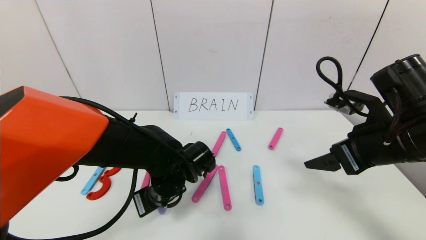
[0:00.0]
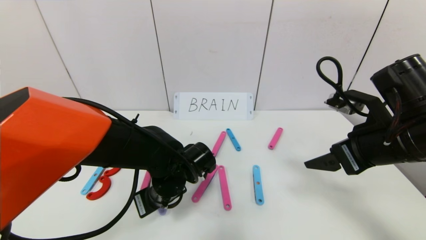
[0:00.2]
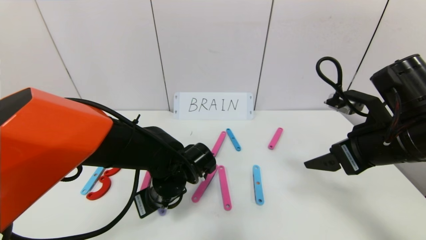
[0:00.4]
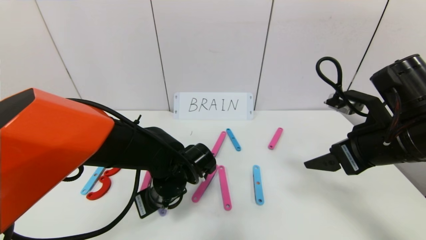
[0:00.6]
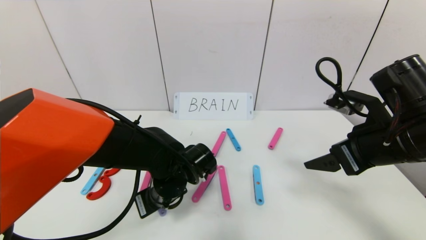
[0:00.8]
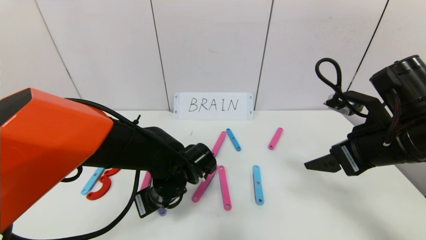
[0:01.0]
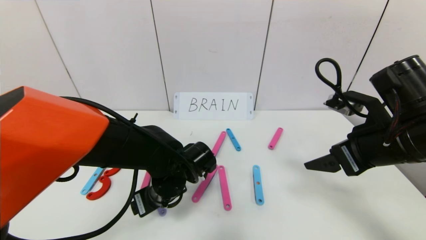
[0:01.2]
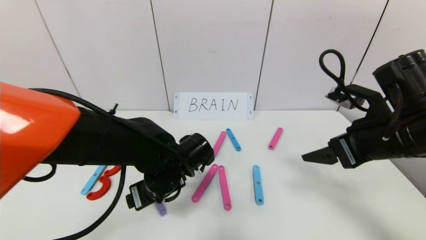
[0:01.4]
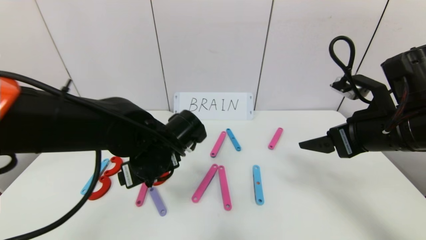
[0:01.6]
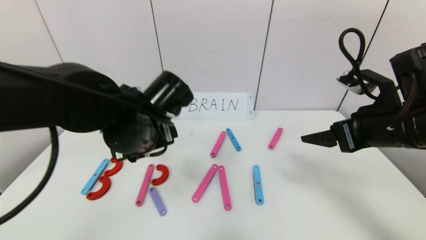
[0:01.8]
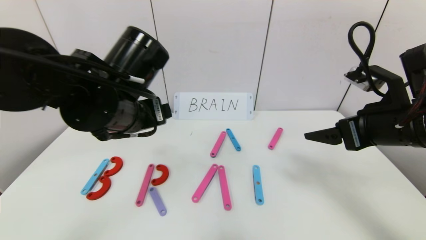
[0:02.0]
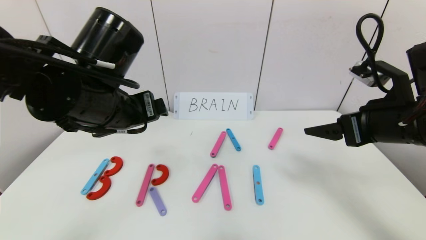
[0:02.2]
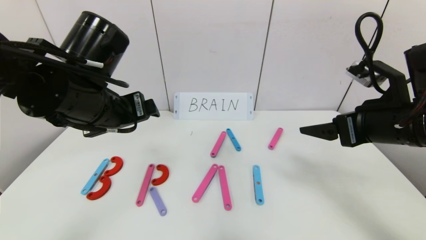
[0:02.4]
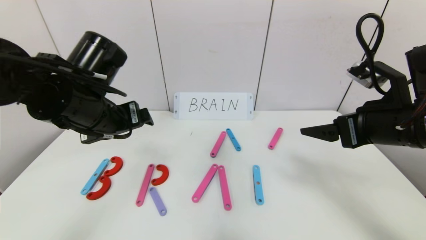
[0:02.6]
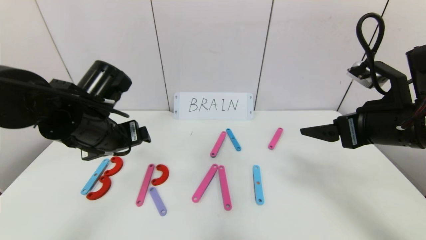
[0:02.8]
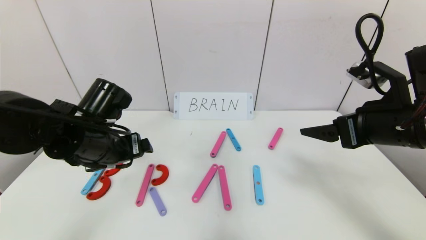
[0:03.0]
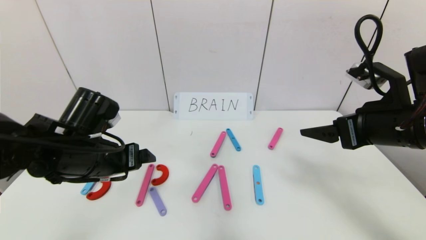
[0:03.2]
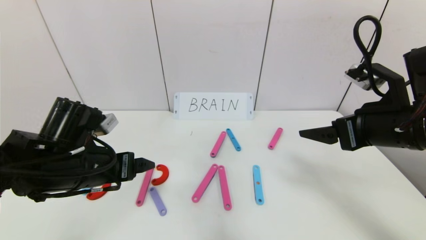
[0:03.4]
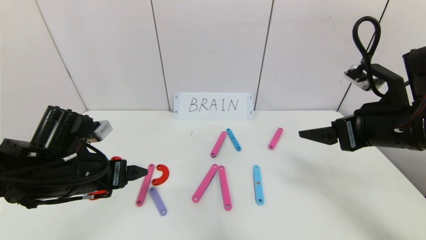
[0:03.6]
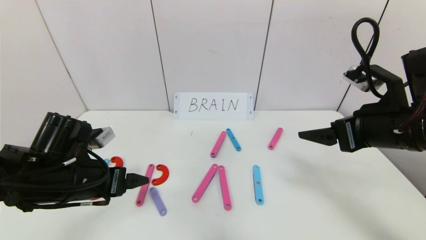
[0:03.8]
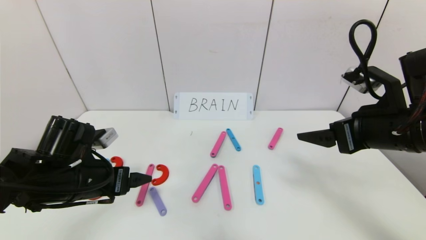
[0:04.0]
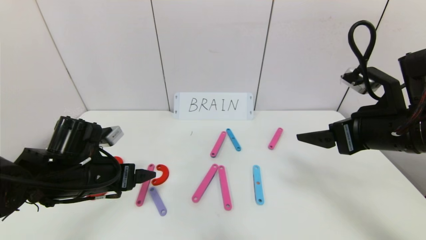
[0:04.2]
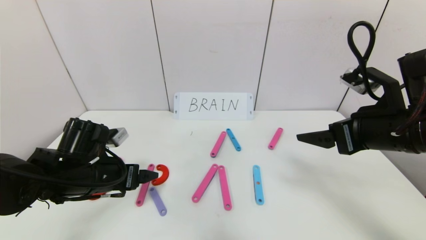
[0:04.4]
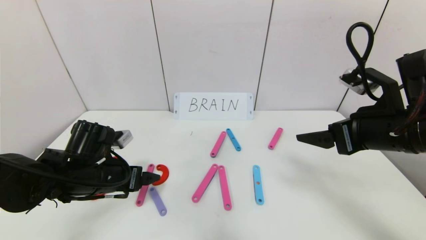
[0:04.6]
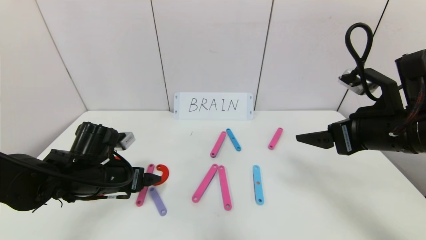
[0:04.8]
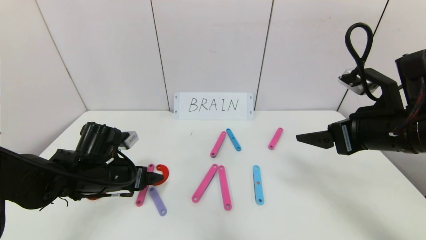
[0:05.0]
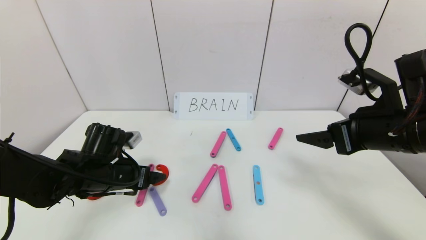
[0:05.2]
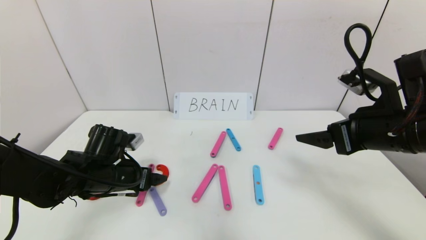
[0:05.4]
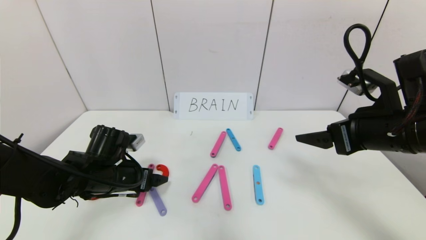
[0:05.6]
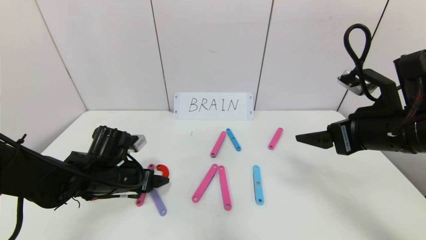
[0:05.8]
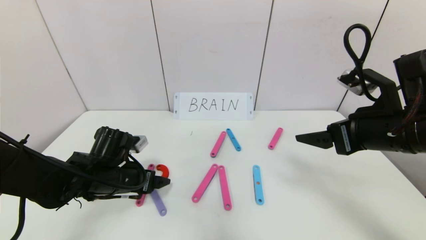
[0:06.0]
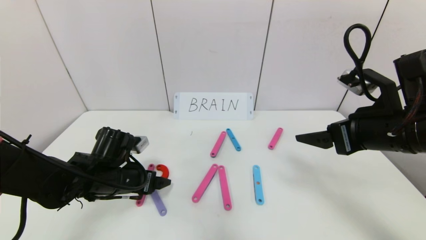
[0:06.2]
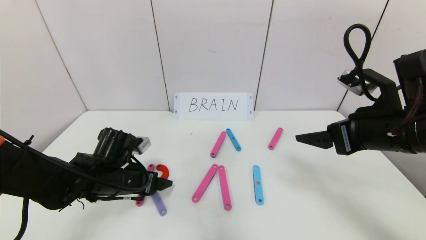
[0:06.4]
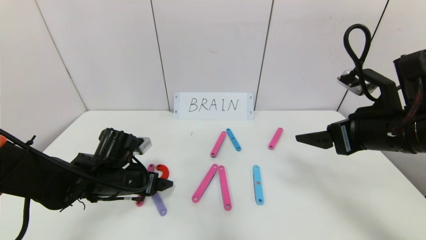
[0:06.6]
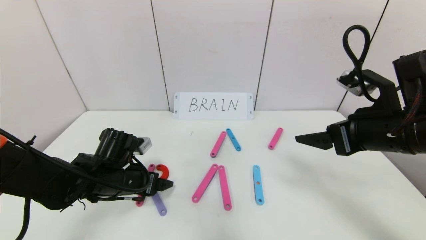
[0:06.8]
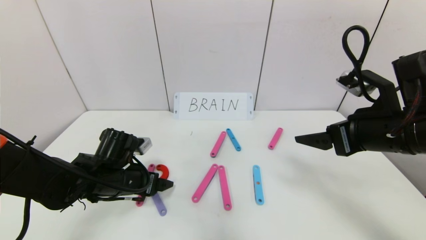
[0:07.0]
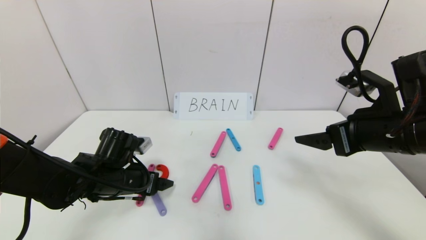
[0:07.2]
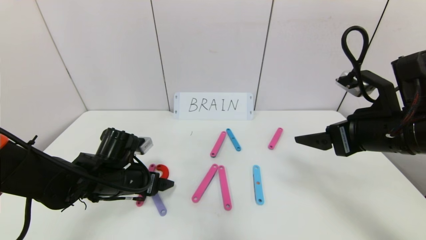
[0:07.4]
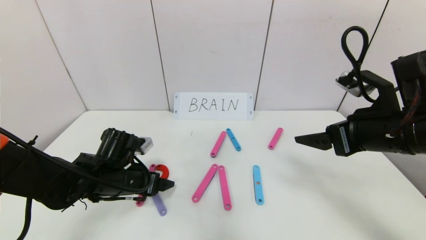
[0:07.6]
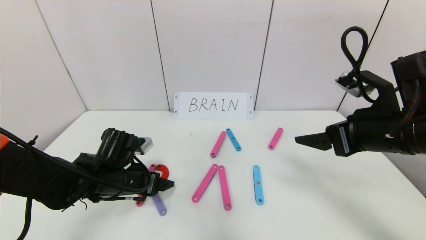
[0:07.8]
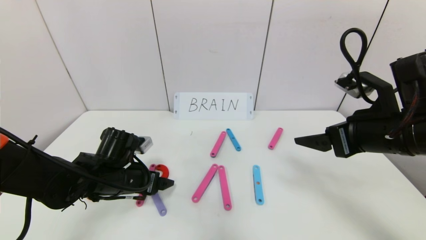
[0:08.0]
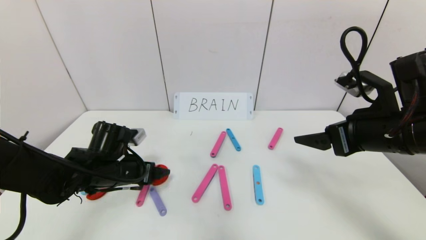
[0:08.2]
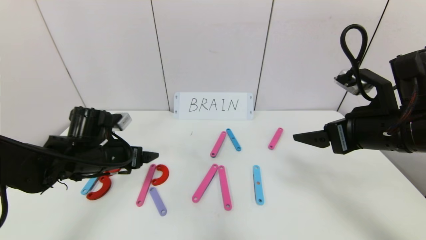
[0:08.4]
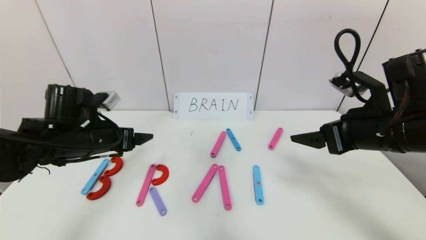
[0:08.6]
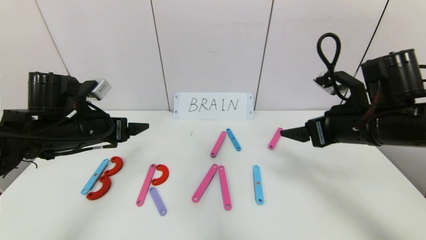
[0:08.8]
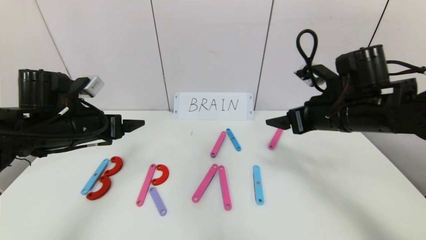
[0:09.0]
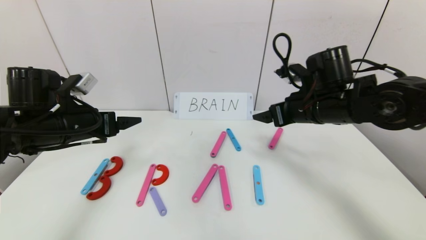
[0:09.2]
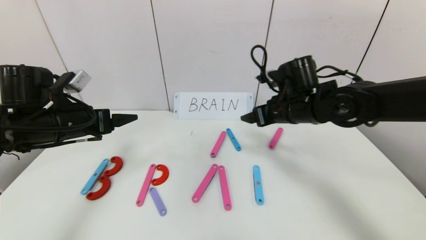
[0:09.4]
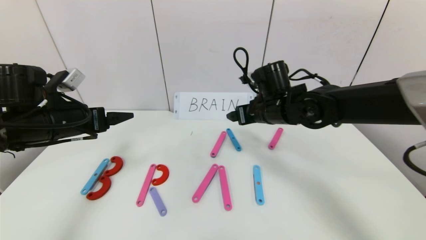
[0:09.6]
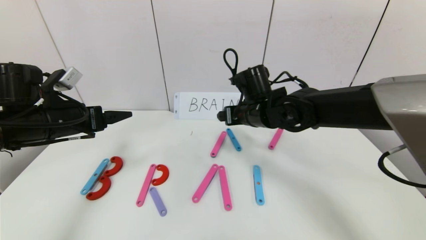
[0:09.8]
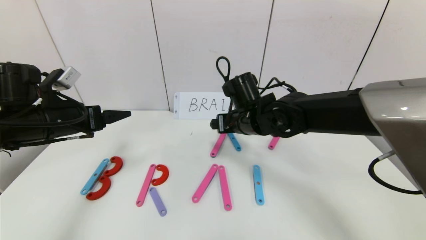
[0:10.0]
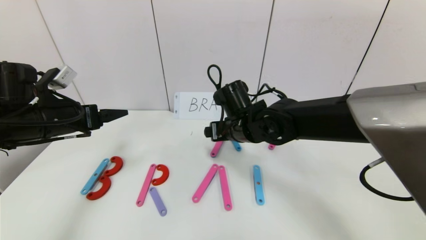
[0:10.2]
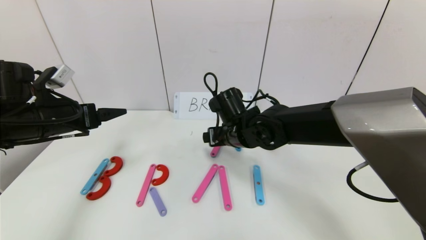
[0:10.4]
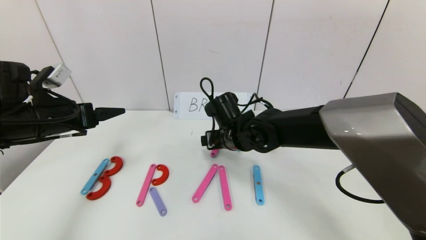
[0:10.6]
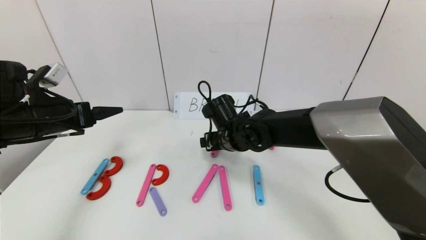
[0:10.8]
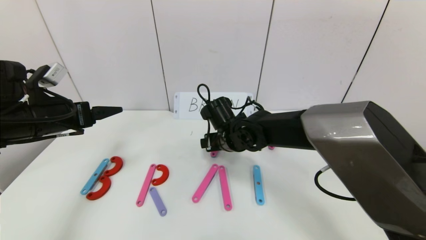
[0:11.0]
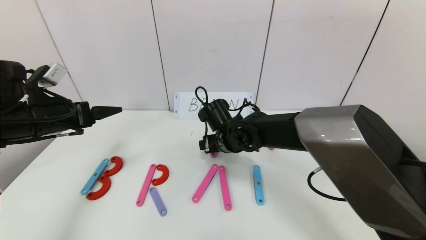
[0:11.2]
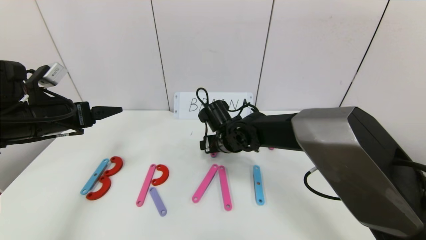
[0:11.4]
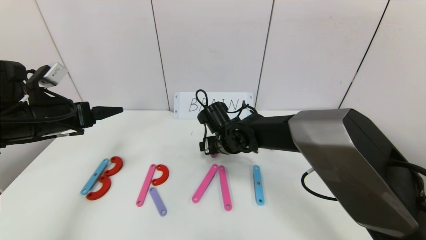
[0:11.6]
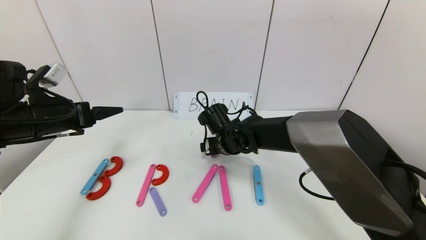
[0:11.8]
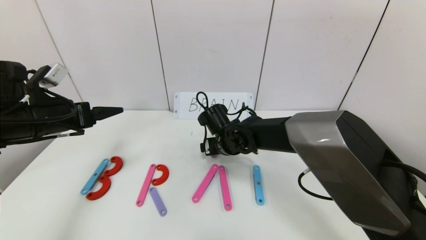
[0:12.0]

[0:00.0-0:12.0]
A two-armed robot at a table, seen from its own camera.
Task of the whole recording: rearrange the word baai as brain.
Step, 0:00.0 to 0:08.0: Place the character R between first character B and third character A.
0:00.0 to 0:01.6: The left gripper is displaced upward by approximately 5 cm, and opens its fingers.
0:01.6 to 0:03.0: The left gripper moves to the left, about 10 cm, and reaches some 10 cm upward, then returns.
0:03.0 to 0:04.4: The left gripper is displaced downward by about 5 cm.
0:04.4 to 0:06.0: The grippers stay close to where they were, moving slightly.
0:06.0 to 0:07.6: The two grippers keep their place.
0:07.6 to 0:09.0: The right gripper travels forward by about 5 cm. The left gripper heads upward and to the left, covering some 15 cm.
0:09.0 to 0:10.4: The right gripper travels to the left and downward by some 20 cm.
0:10.4 to 0:12.0: The right gripper moves downward, about 5 cm.

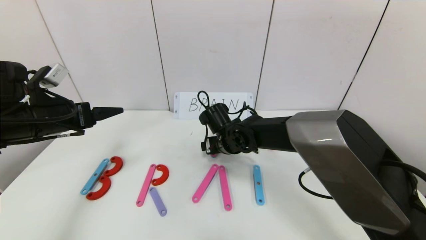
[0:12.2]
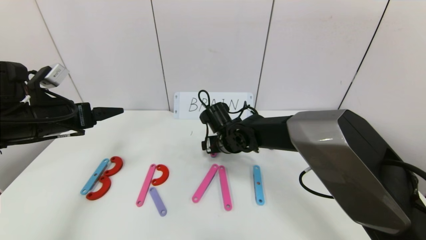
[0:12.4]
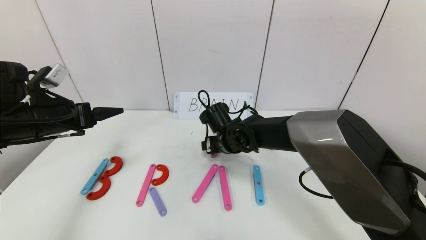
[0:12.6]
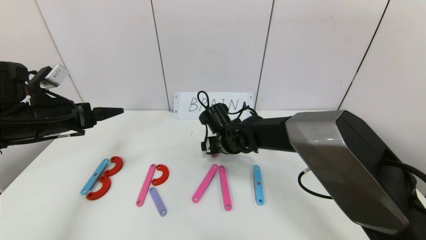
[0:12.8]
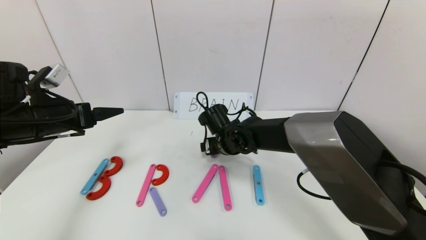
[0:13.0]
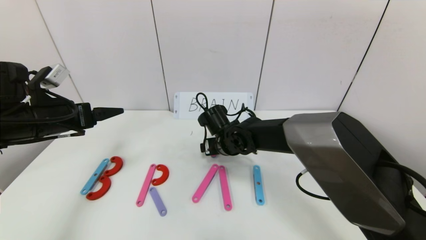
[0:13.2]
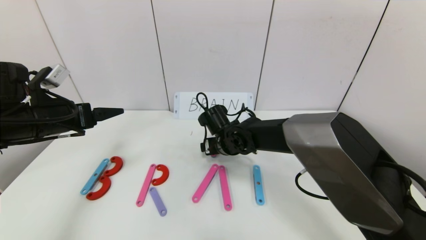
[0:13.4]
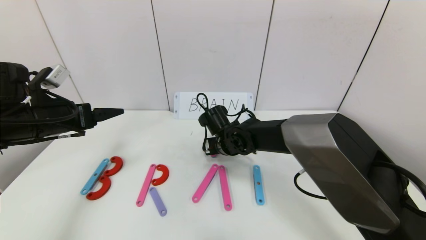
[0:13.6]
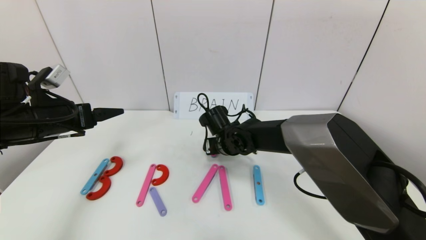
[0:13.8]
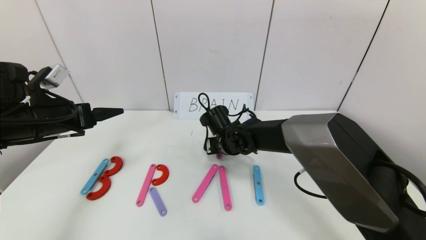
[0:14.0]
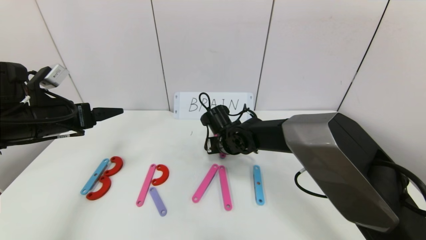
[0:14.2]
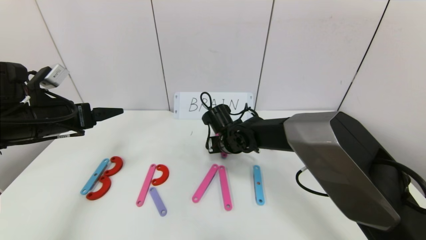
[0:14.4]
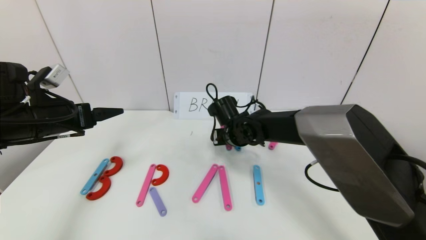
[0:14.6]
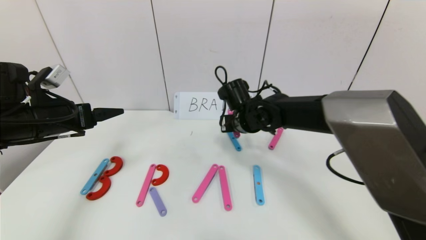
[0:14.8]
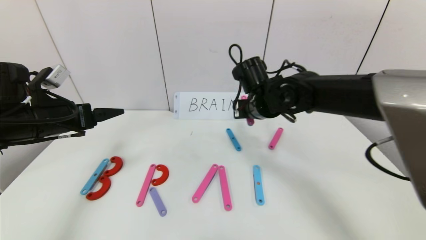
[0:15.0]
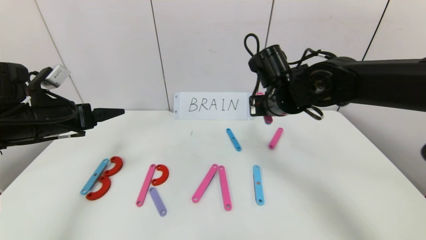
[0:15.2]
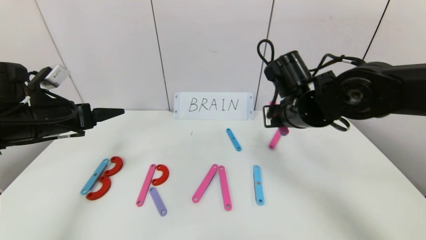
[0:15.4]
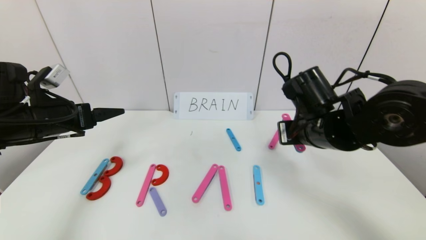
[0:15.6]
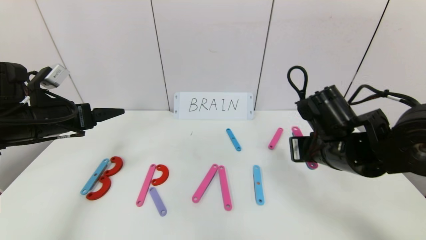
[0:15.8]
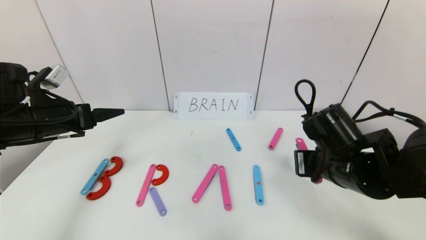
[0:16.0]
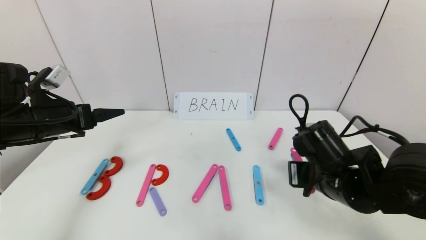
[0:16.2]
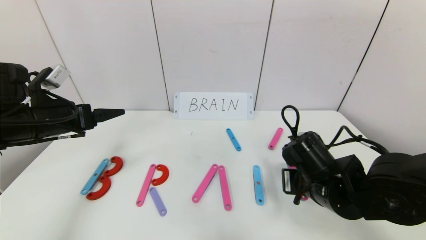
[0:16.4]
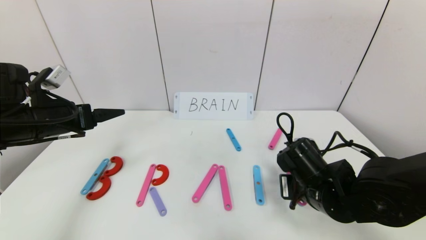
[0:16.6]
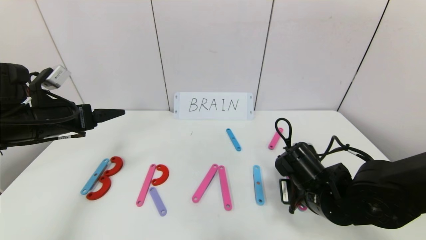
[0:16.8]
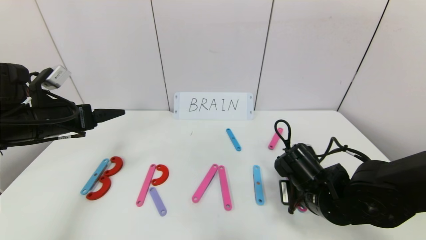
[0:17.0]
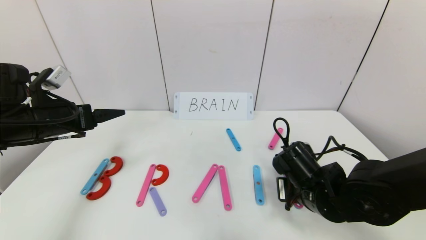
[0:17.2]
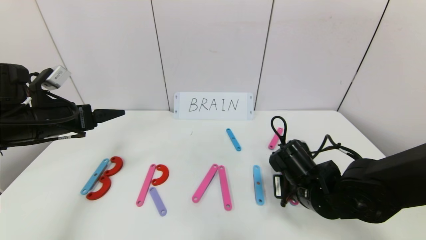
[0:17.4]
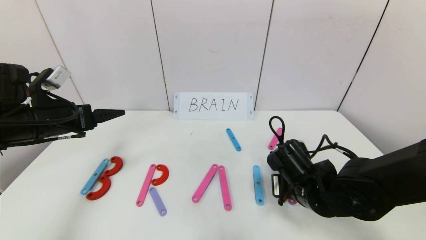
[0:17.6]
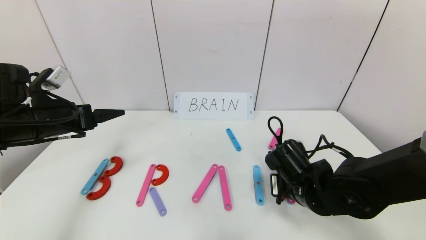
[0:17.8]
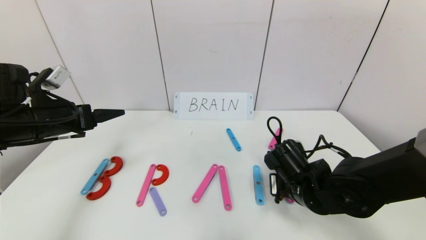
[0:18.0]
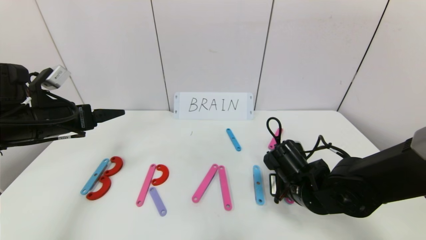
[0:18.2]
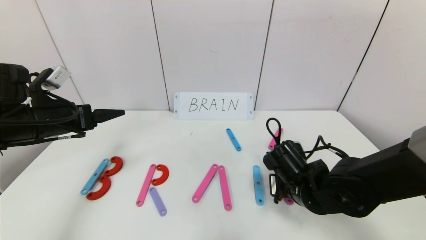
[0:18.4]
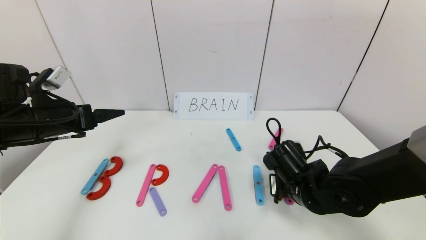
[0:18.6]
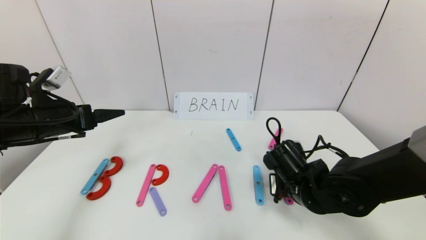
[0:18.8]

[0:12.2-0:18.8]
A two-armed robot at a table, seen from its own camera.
Task of the whole recording: rearrange the word baai as brain.
0:12.2 to 0:13.8: The right gripper closes.
0:13.8 to 0:15.4: The right gripper shifts approximately 20 cm upward, to the right and backward, and closes.
0:15.4 to 0:17.2: The right gripper shifts approximately 15 cm downward and backward.
0:17.2 to 0:18.8: The right gripper opens.
